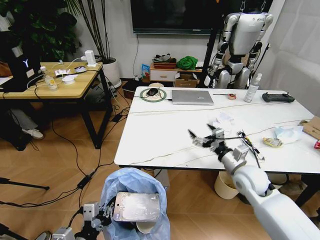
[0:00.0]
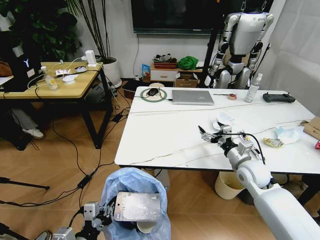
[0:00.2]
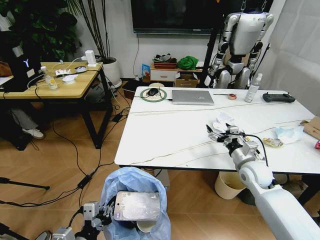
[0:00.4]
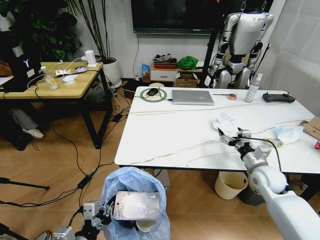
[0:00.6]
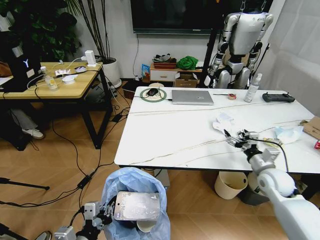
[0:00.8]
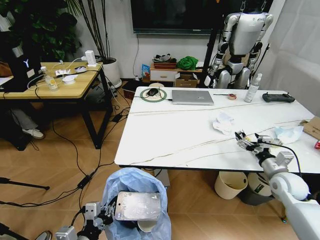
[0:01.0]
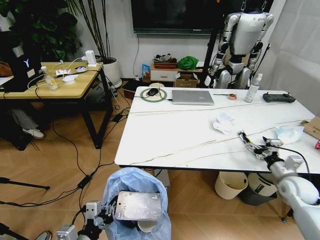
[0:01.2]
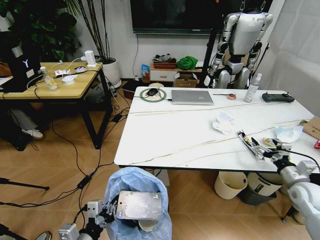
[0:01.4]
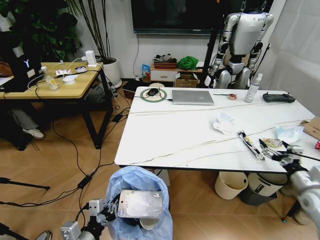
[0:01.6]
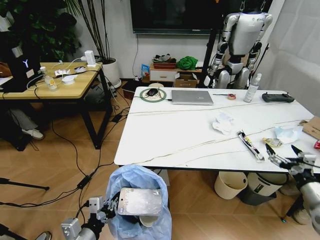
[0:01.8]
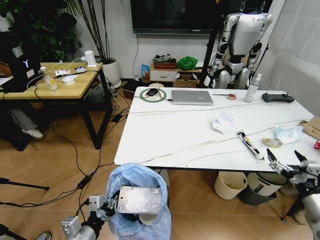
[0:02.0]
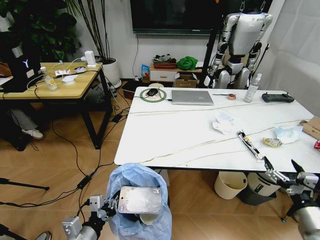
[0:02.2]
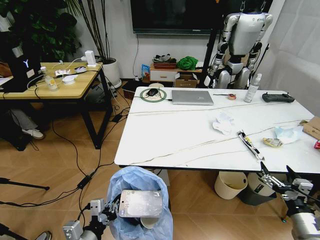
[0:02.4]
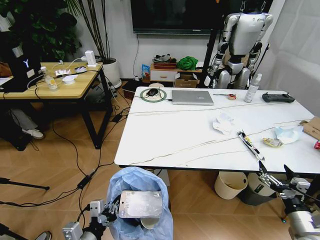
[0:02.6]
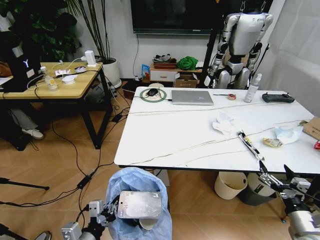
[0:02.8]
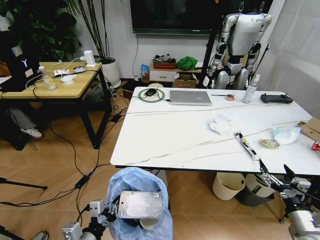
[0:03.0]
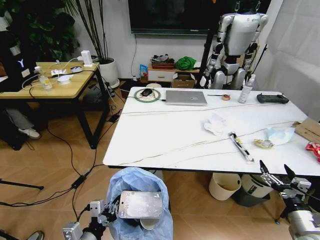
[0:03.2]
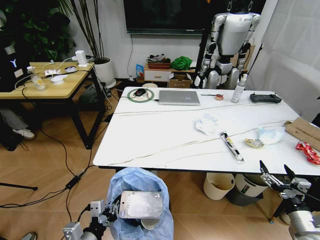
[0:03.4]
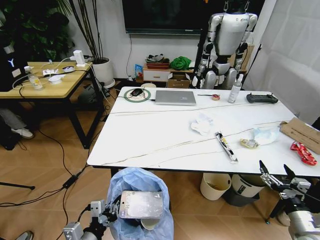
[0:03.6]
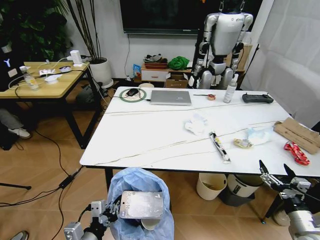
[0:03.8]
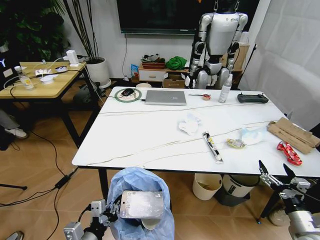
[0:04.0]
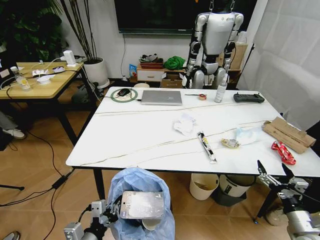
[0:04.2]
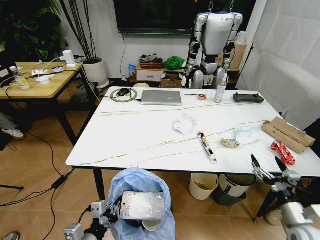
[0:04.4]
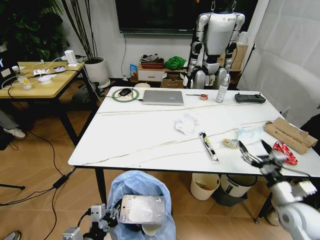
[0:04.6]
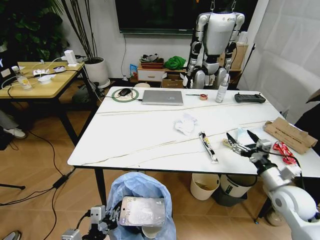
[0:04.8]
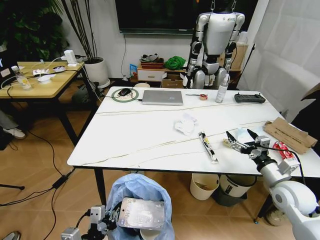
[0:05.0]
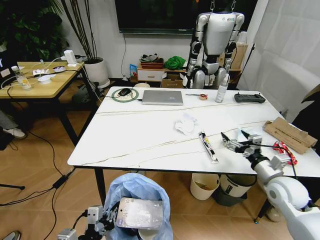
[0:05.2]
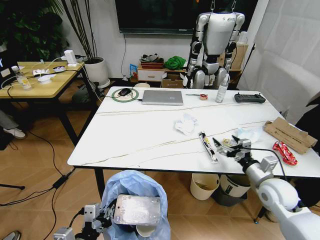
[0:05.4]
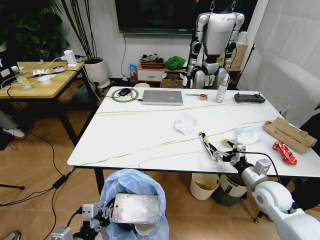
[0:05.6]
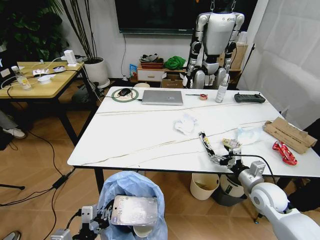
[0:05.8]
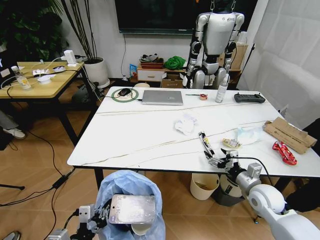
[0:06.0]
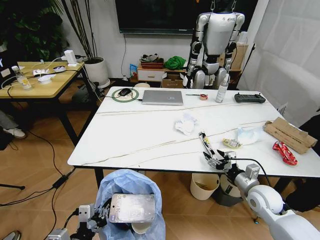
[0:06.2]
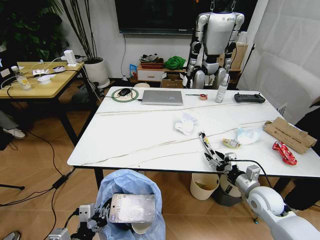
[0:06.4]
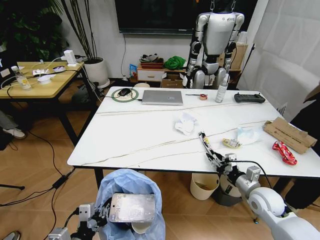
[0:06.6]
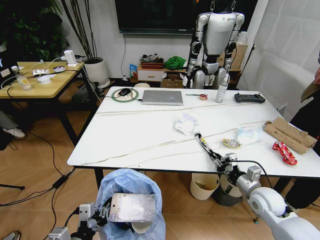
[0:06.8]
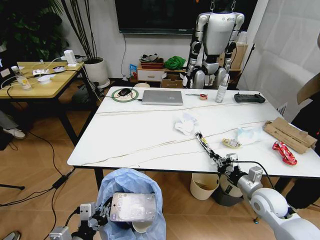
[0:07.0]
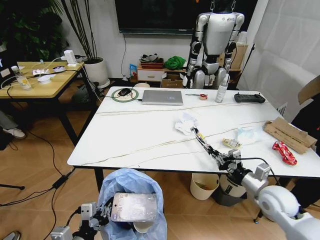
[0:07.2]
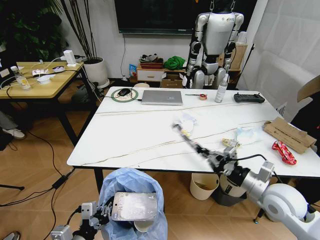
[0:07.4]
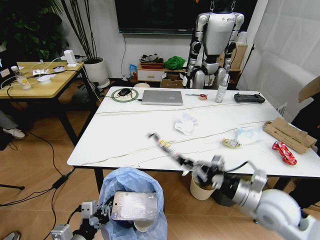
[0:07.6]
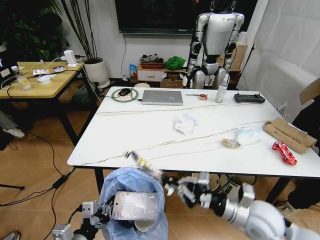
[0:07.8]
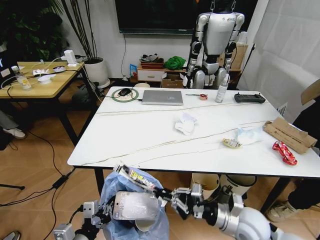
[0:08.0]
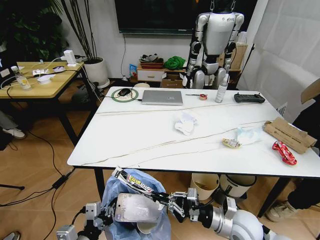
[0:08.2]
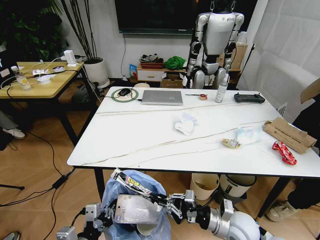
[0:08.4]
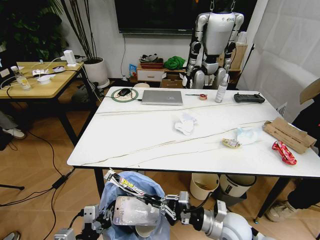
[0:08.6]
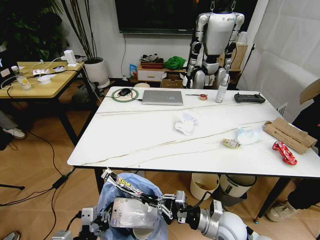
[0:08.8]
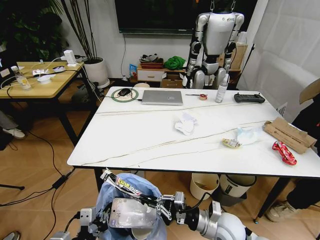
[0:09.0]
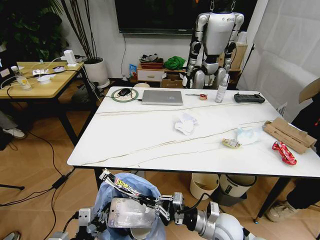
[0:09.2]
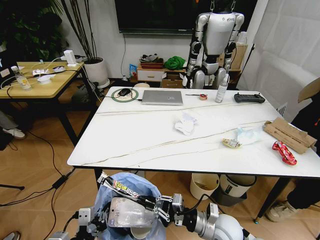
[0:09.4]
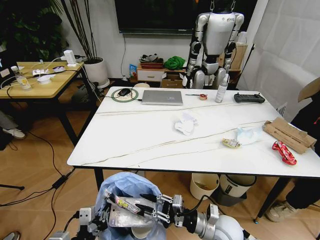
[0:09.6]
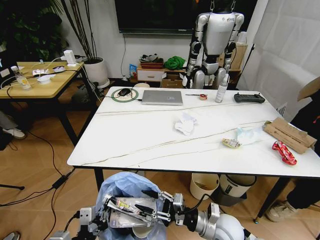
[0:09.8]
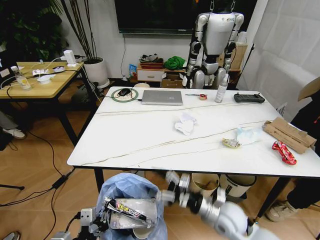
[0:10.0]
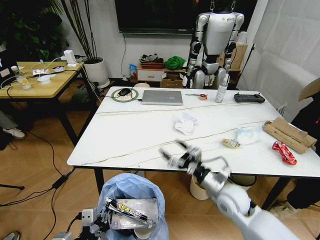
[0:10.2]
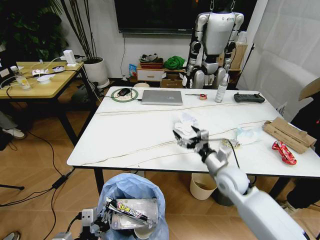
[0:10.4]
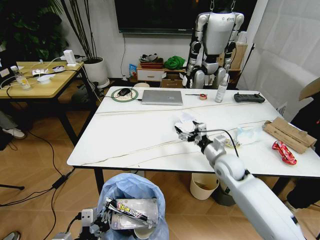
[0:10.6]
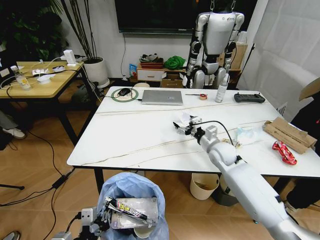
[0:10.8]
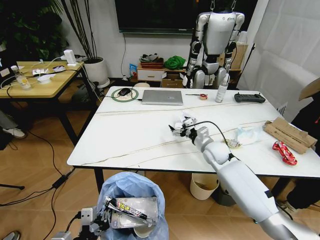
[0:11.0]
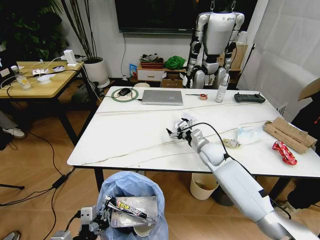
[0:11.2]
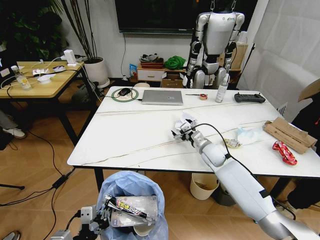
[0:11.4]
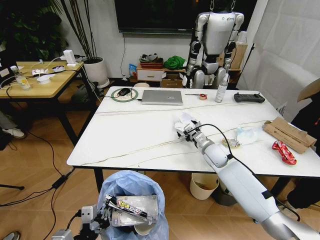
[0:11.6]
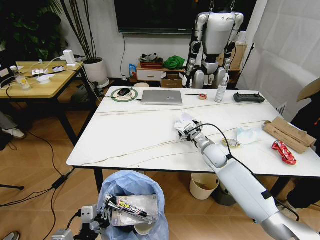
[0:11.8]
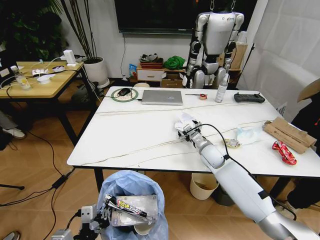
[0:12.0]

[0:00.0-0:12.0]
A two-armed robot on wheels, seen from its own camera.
Task of the whole recording: Pick up the trash bin and place the trash from the table into it.
0:00.0 to 0:01.6: The right gripper shifts about 20 cm to the right and backward.
0:01.6 to 0:03.0: The right gripper is displaced backward and to the left by roughly 10 cm.
0:04.4 to 0:06.0: The right gripper heads forward and to the left, covering about 15 cm.
0:06.0 to 0:07.6: The right gripper goes approximately 10 cm upward, backward and to the left, and closes up.
0:07.6 to 0:09.0: The right gripper shifts about 15 cm downward and to the left.
0:09.0 to 0:10.4: The right gripper is displaced forward and upward by some 15 cm, and opens up.
0:10.4 to 0:12.0: The right gripper travels forward by about 10 cm.

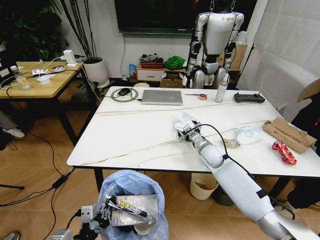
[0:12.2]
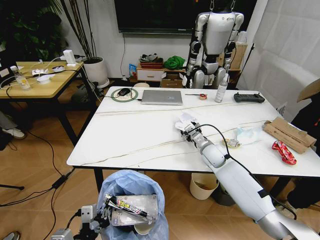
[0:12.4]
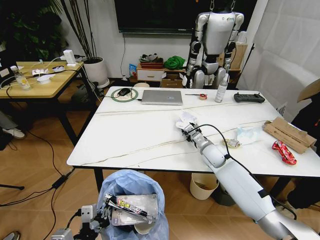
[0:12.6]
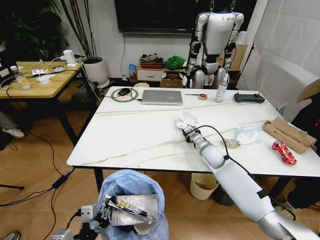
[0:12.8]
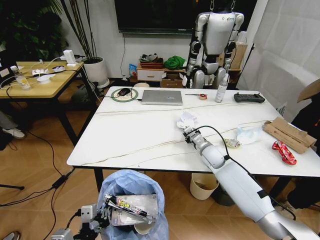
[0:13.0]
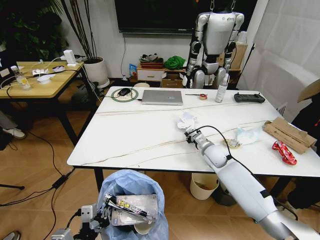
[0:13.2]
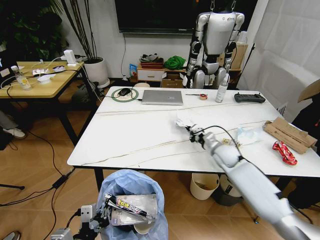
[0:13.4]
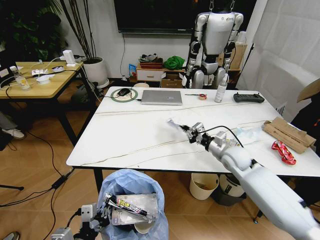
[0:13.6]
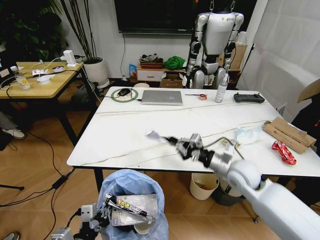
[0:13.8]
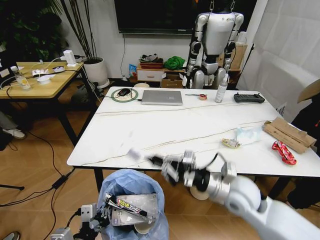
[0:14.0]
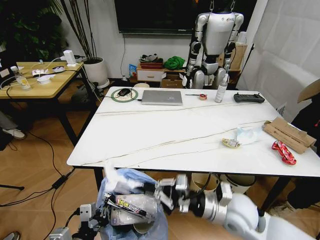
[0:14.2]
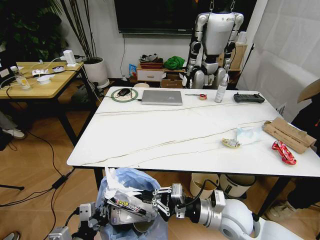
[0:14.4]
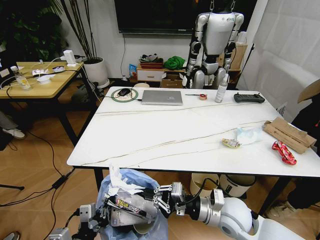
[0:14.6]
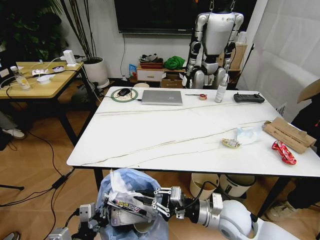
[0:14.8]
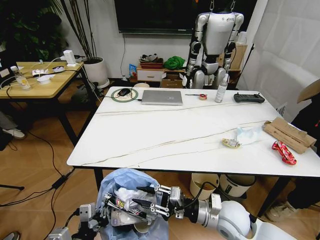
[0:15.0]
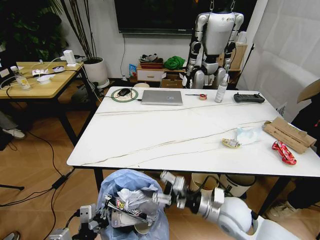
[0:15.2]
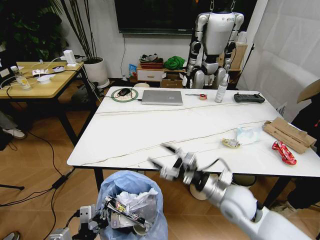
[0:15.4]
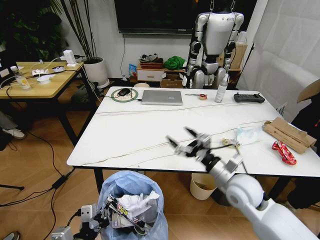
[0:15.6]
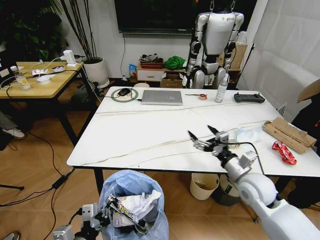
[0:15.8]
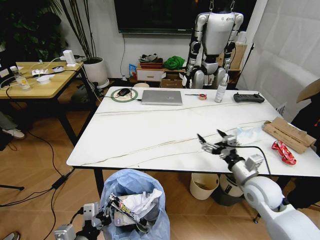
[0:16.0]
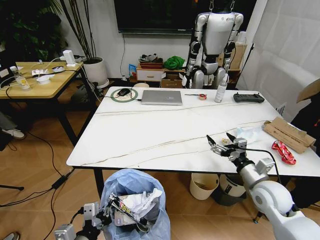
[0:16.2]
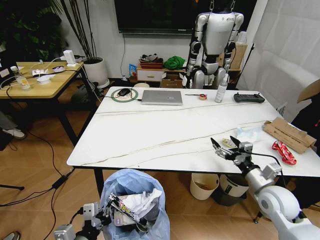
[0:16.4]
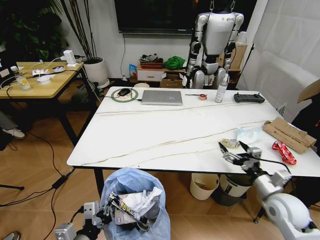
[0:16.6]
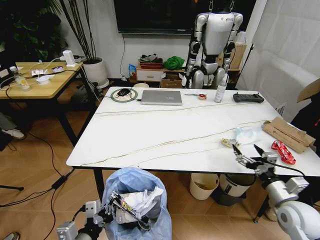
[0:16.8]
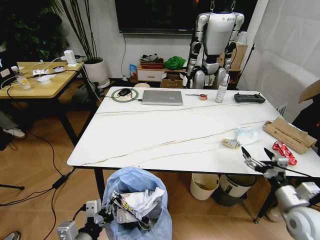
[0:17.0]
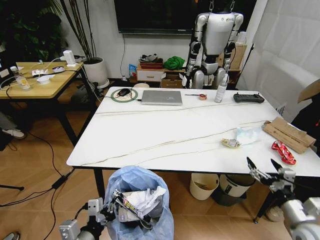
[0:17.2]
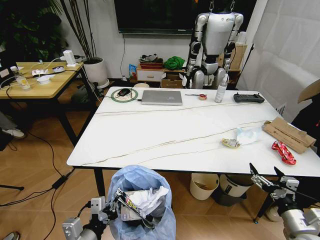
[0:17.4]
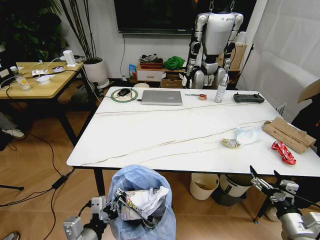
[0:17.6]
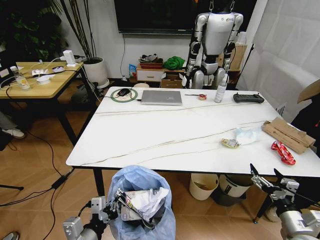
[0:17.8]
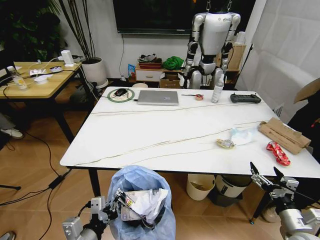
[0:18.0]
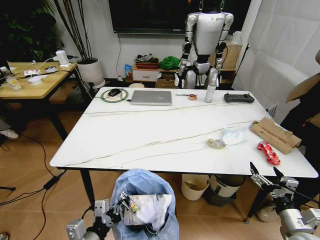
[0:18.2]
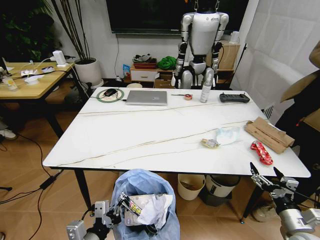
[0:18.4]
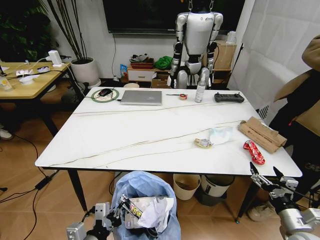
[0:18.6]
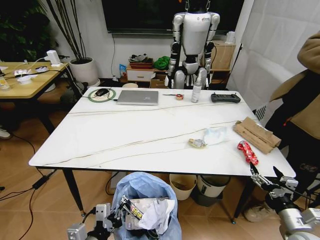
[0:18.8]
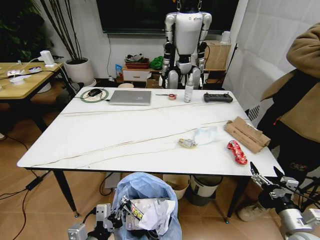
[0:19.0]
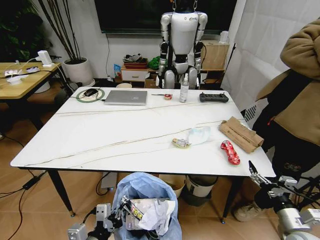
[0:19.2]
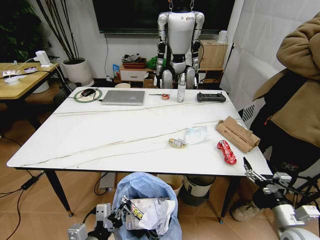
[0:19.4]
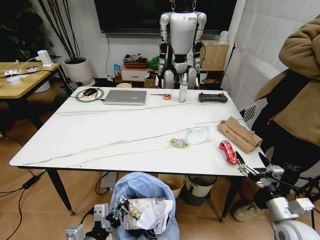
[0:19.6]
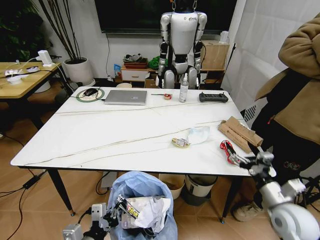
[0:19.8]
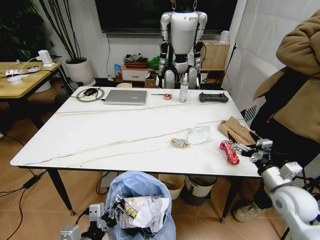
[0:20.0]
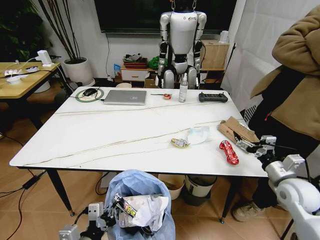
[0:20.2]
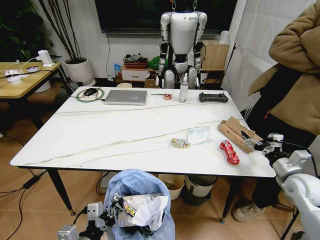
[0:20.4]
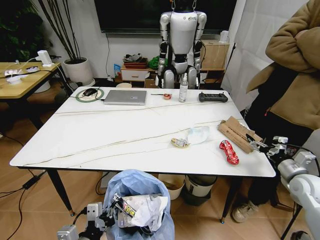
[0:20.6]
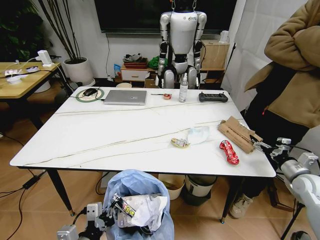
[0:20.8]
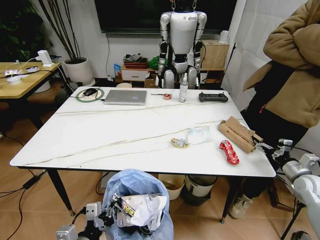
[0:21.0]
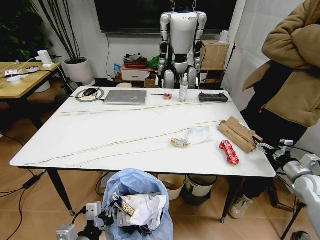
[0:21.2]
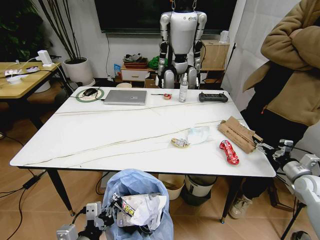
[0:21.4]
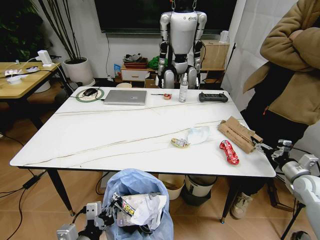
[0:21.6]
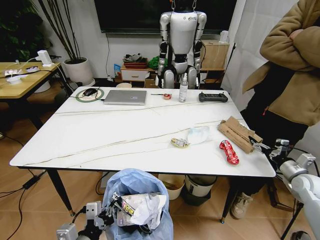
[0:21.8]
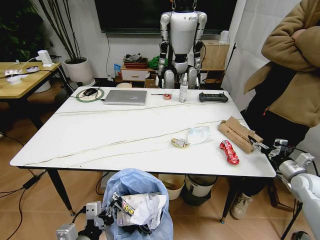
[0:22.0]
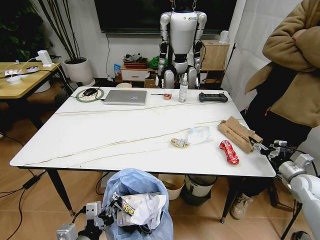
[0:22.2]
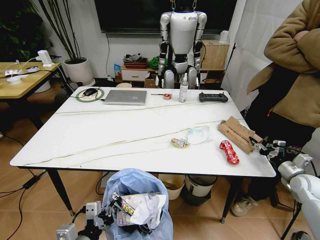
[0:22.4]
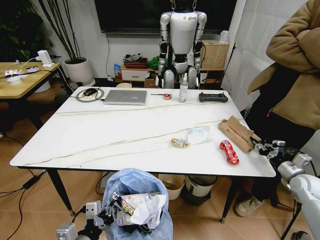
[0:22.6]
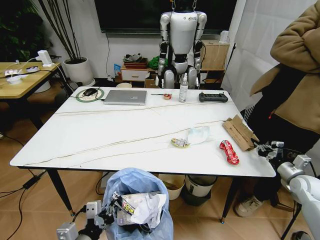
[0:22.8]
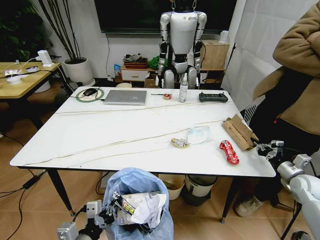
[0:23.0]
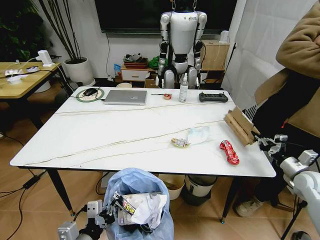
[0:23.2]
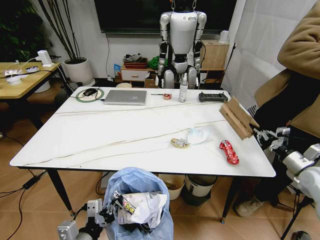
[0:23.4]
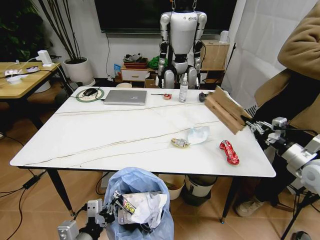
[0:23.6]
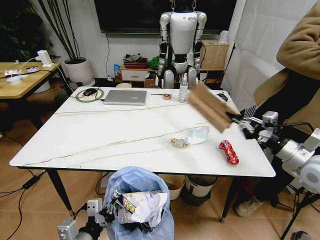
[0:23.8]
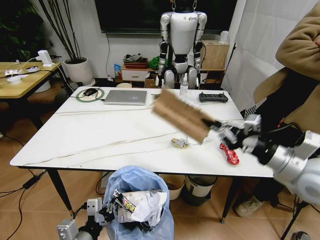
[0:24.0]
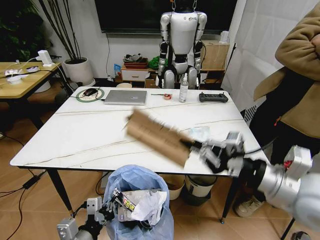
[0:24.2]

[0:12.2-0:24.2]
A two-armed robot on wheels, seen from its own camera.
Task of the whole recording: Pick up the trash bin and place the trash from the table into it.
0:12.2 to 0:13.8: The right gripper moves backward, upward and to the right, some 15 cm, and closes its fingers.
0:13.8 to 0:15.2: The right gripper goes about 15 cm backward and to the left, and opens.
0:15.2 to 0:16.6: The right gripper travels to the right by about 15 cm, and opens its fingers.
0:16.6 to 0:18.2: The right gripper travels backward by some 10 cm.
0:18.2 to 0:19.8: The right gripper goes approximately 10 cm forward and upward.
0:19.8 to 0:21.2: The right gripper heads to the right and forward, covering approximately 20 cm.
0:21.2 to 0:22.6: The right gripper closes.
0:22.6 to 0:24.2: The right gripper shifts approximately 35 cm to the left, upward and backward.
